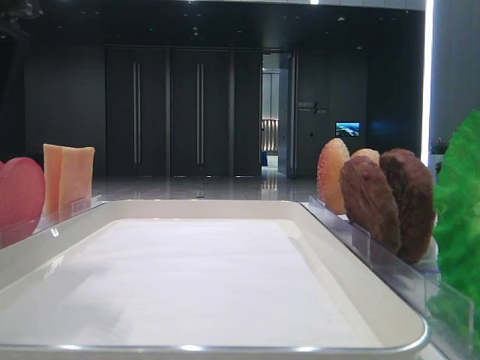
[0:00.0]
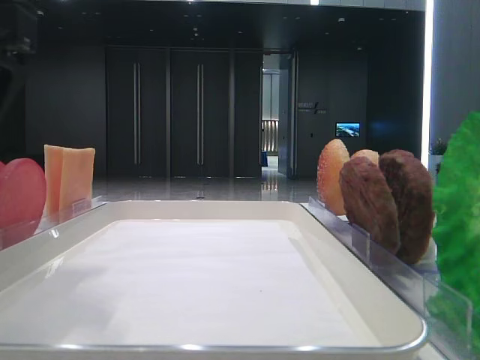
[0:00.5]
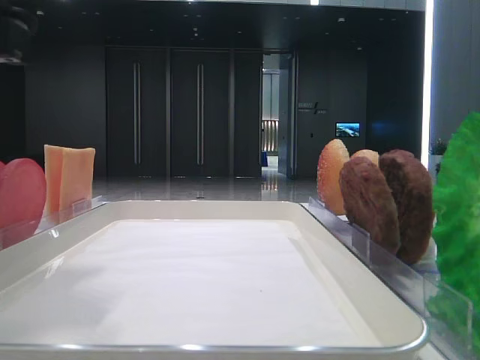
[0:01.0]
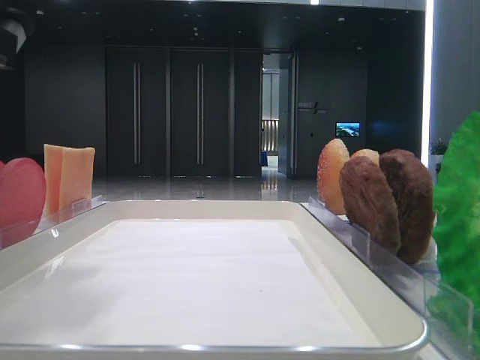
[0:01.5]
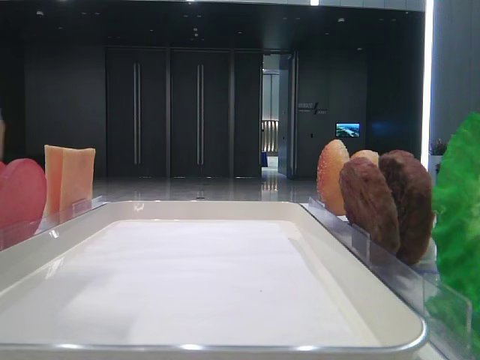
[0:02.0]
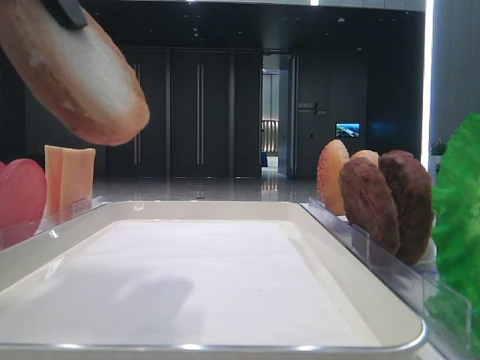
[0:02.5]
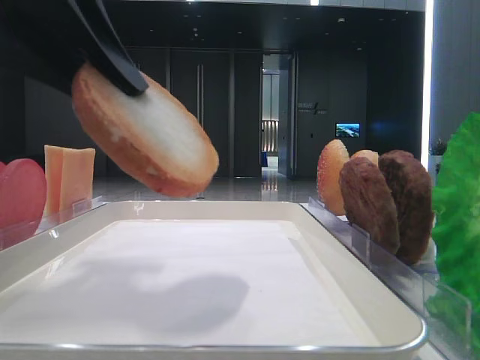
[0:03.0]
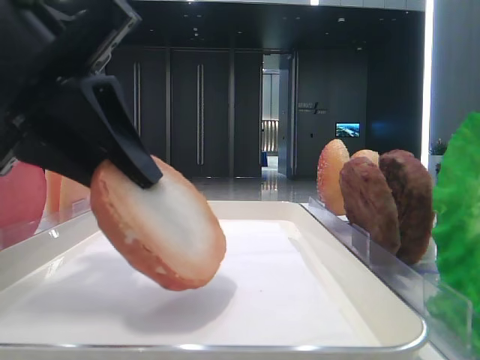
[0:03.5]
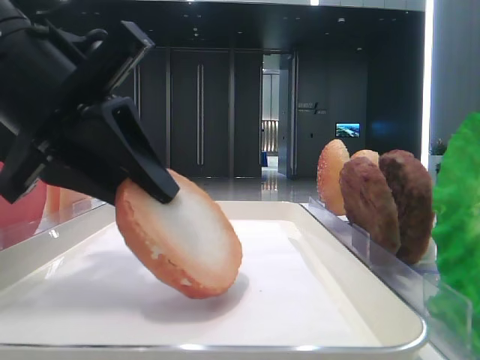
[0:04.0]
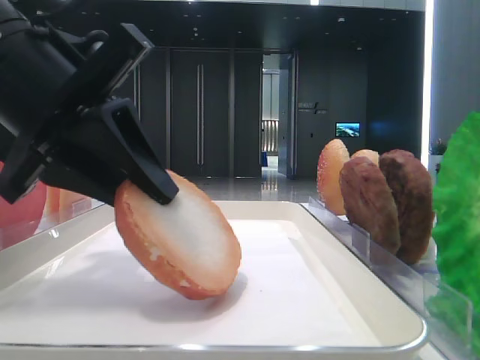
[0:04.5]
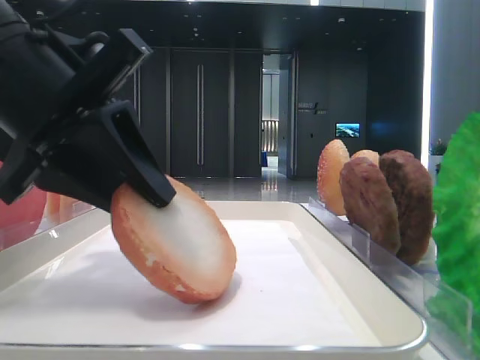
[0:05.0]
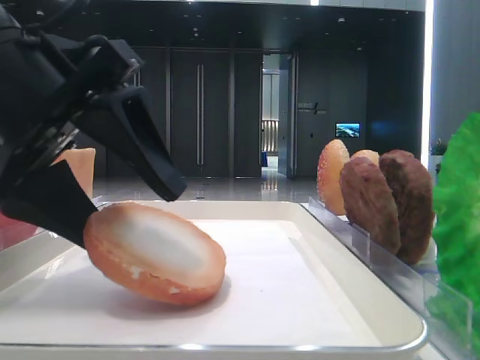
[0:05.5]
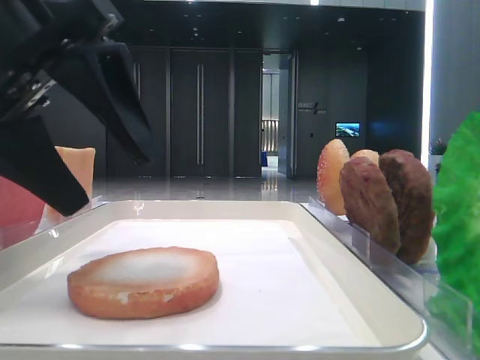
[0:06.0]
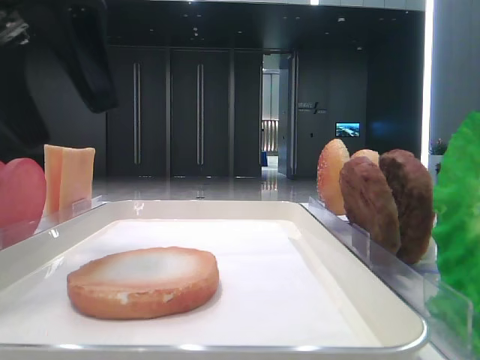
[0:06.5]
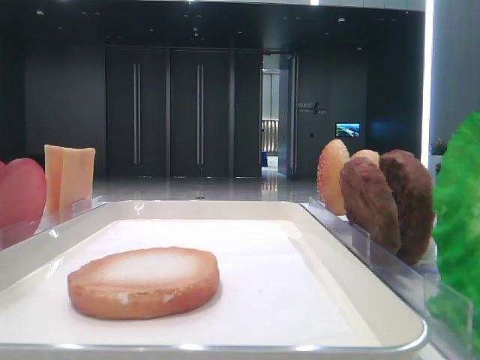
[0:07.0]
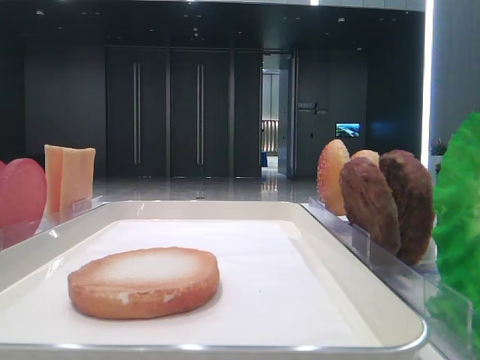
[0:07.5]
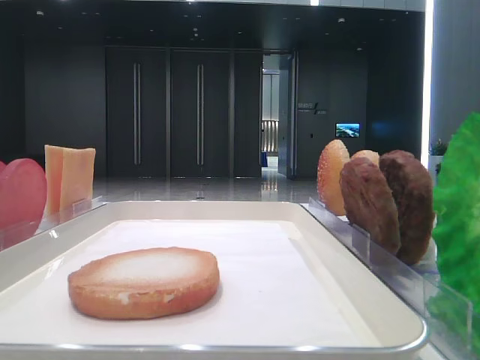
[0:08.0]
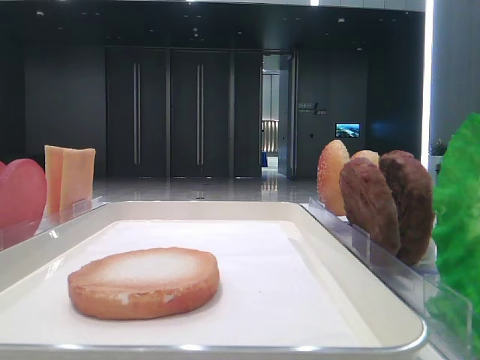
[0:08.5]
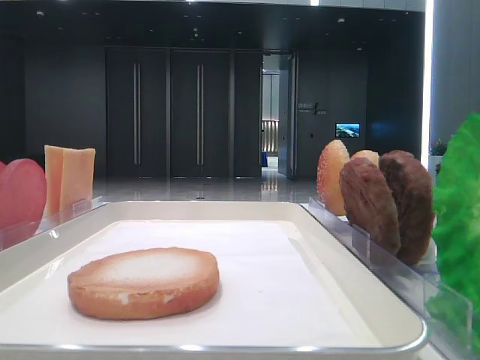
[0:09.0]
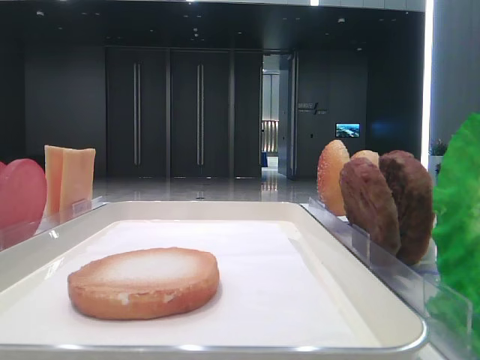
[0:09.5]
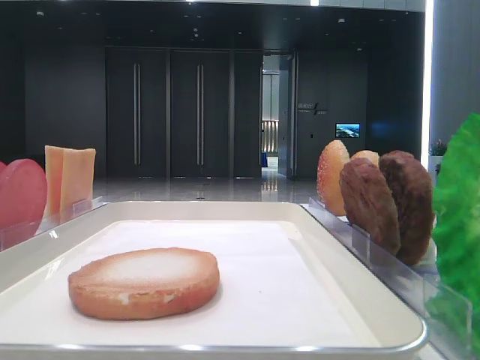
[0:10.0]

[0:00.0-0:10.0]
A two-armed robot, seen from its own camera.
Step, 0:01.5 to 0:05.5: Place the bread on the tray with the left hand.
0:00.0 to 0:02.0: The left gripper heads upward, covering some 5 cm, and closes up.
0:02.0 to 0:04.0: The left gripper travels downward by some 15 cm.
0:04.0 to 0:06.0: The left gripper moves upward, about 5 cm, and opens its fingers.
0:06.0 to 0:08.0: The left gripper travels backward and to the left by about 25 cm.

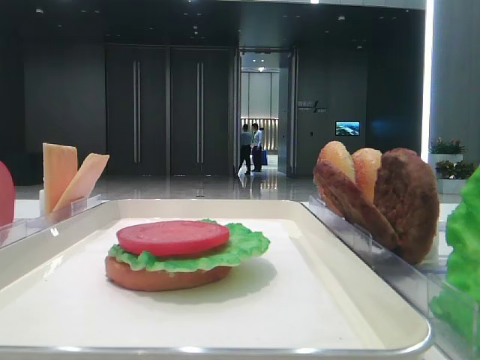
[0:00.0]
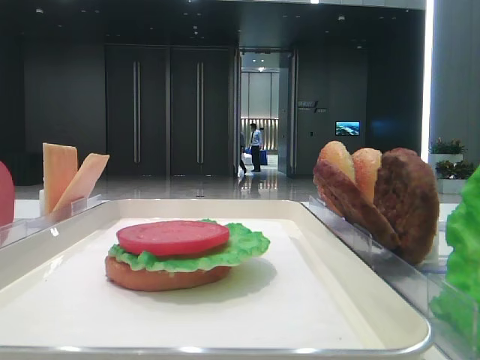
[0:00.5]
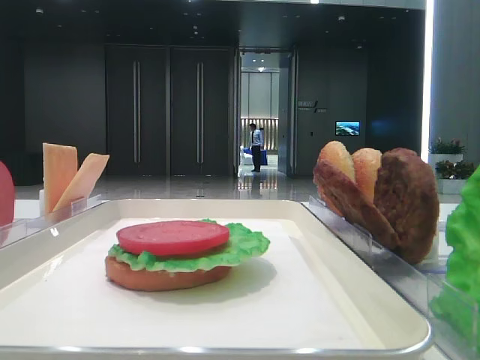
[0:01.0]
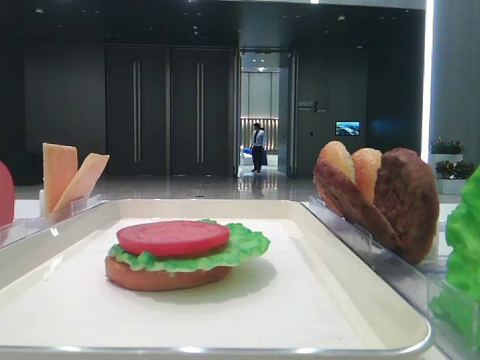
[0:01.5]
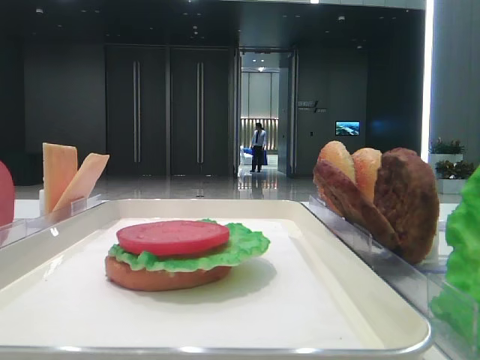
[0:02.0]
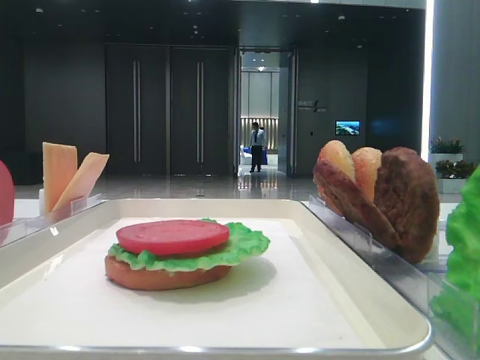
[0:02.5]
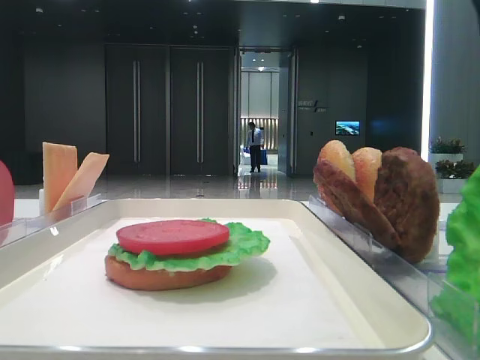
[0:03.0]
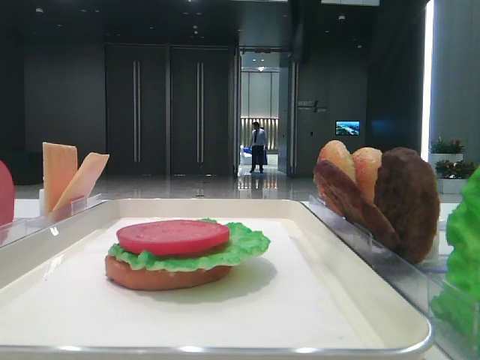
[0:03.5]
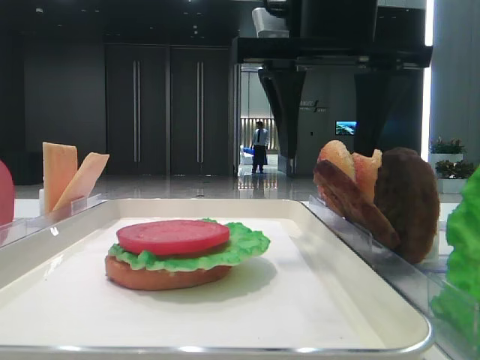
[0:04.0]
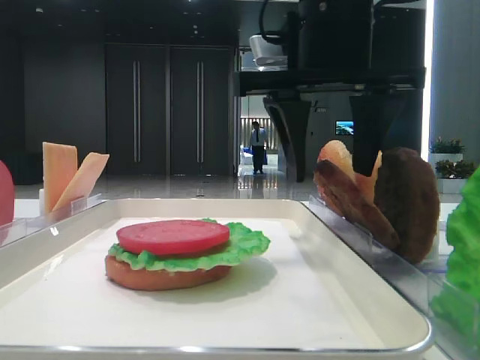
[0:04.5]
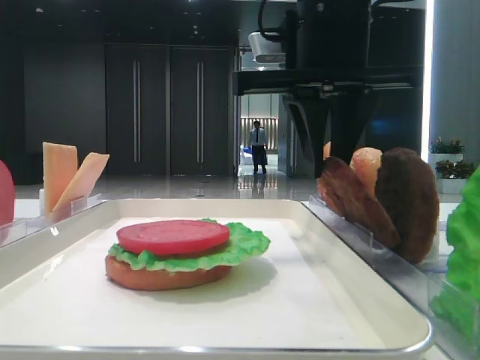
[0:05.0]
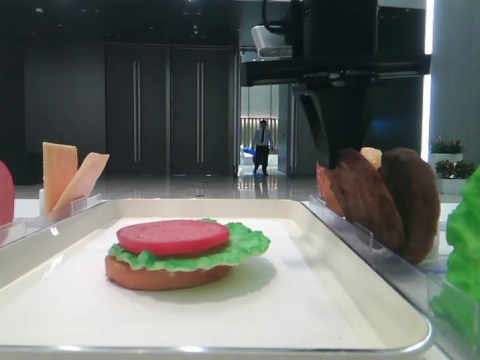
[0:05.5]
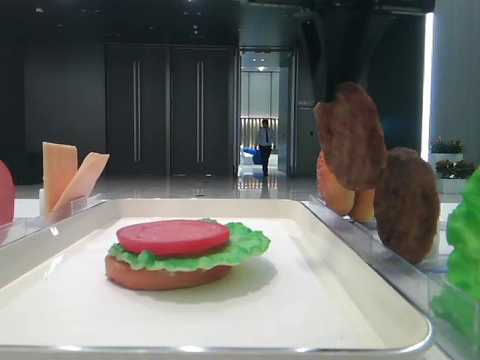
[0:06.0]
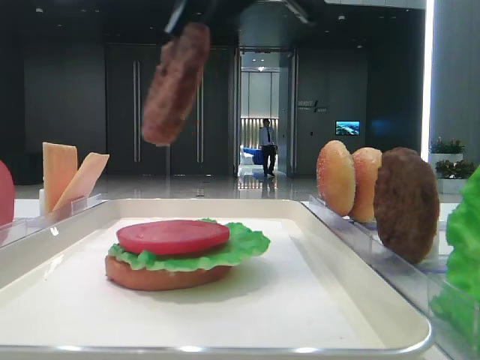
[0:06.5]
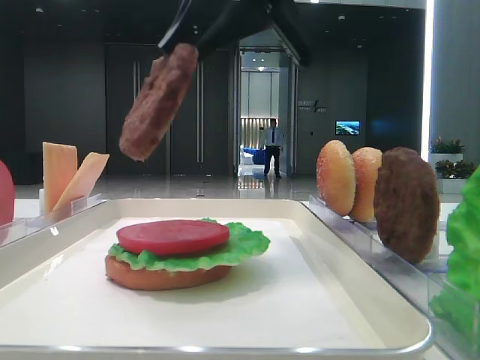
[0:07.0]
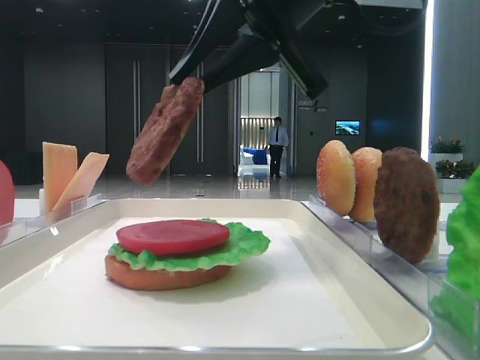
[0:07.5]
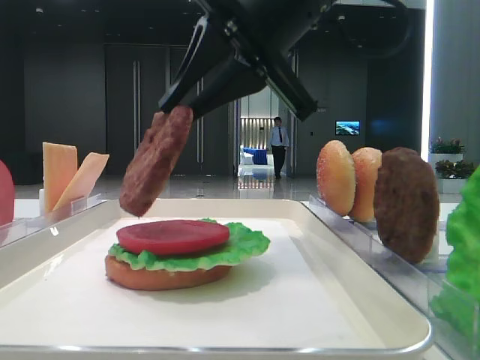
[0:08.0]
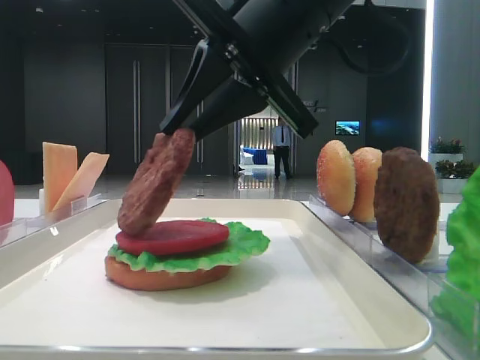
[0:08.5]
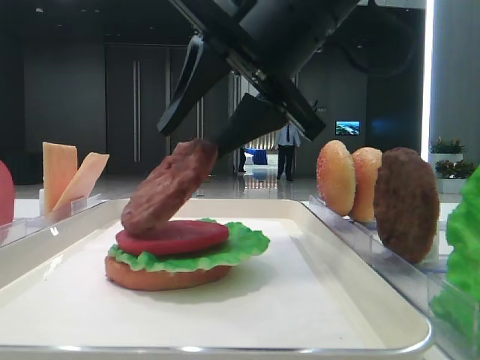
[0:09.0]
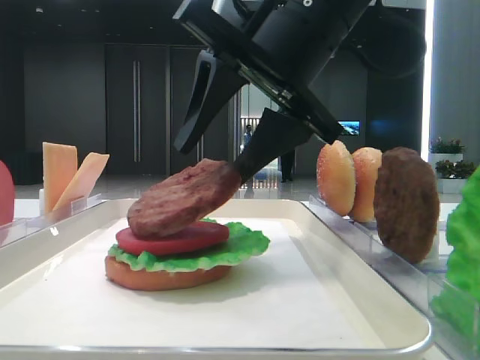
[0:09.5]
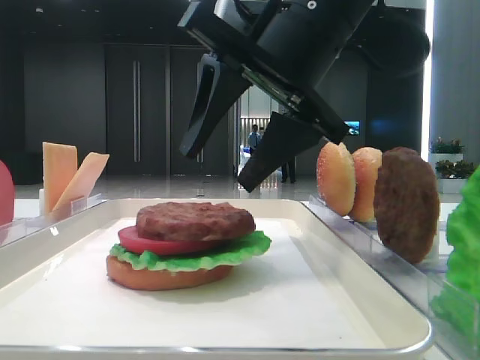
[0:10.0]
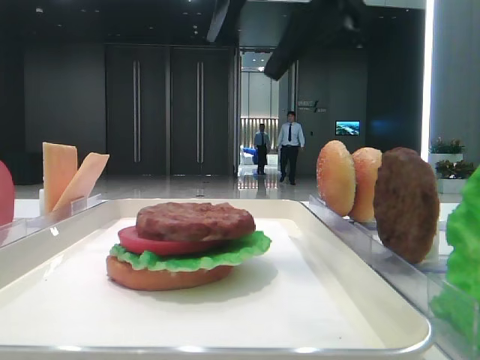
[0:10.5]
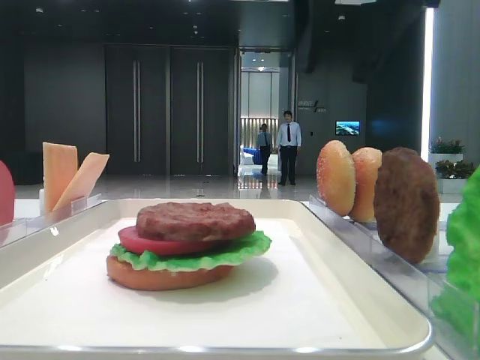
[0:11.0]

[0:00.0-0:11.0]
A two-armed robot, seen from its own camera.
Step, 0:00.0 to 0:05.5: Grab the patty with the right hand.
Step, 0:06.0 to 0:09.5: Place the patty on the tomato slice with the right hand.
0:02.0 to 0:03.5: The right gripper shifts about 30 cm forward and to the left.
0:03.5 to 0:05.5: The right gripper shifts roughly 10 cm downward, and closes.
0:05.5 to 0:07.5: The right gripper moves some 10 cm upward and comes back.
0:07.5 to 0:09.0: The right gripper opens its fingers.
0:09.0 to 0:11.0: The right gripper heads upward and to the right, covering some 10 cm.

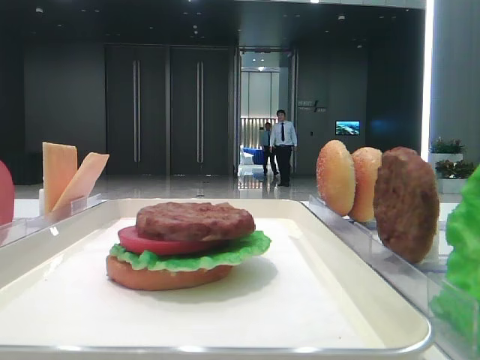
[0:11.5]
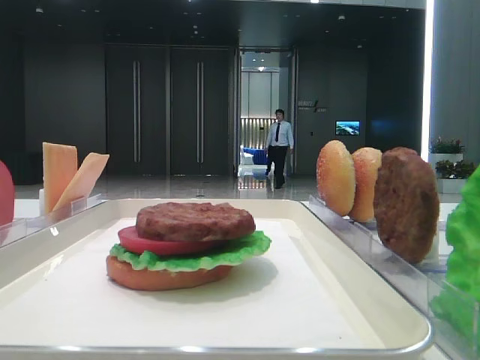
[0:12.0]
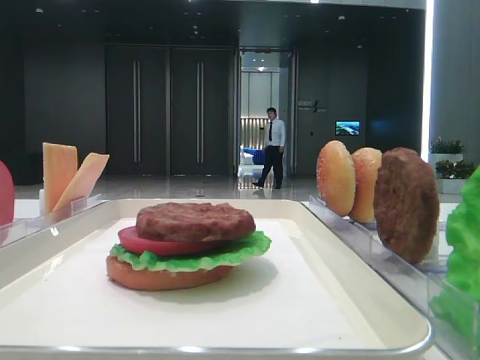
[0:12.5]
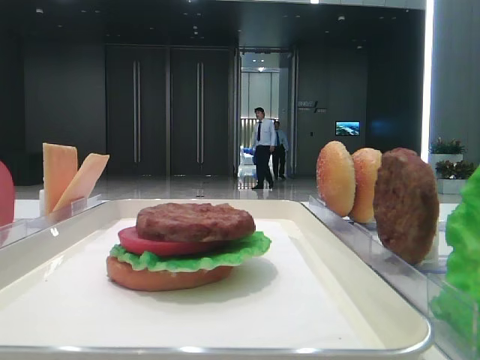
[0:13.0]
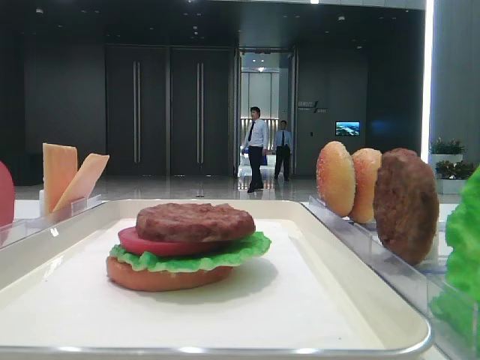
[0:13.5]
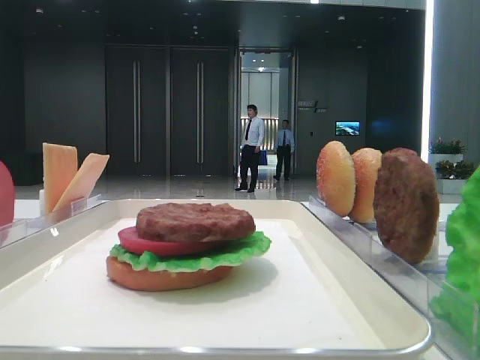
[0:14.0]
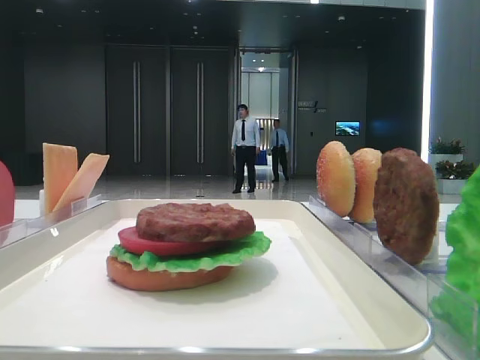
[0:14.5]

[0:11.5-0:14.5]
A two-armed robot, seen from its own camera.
0:11.5 to 0:13.0: The right gripper shifts some 30 cm backward.
0:13.0 to 0:14.5: The right gripper shifts roughly 5 cm backward.

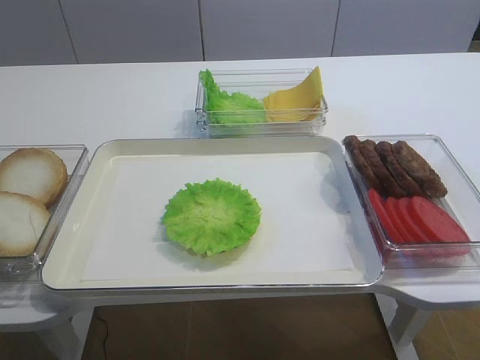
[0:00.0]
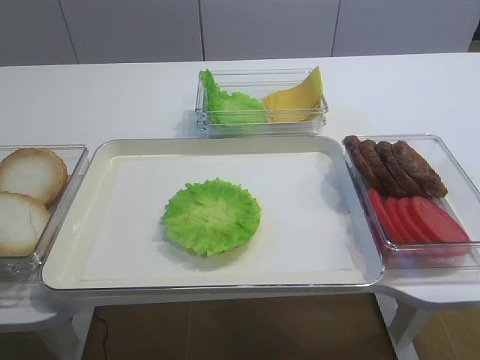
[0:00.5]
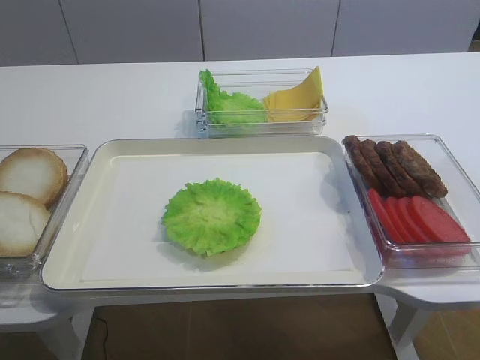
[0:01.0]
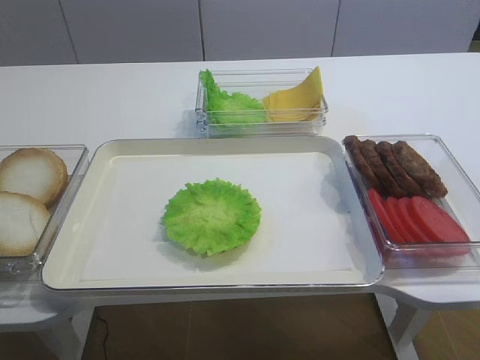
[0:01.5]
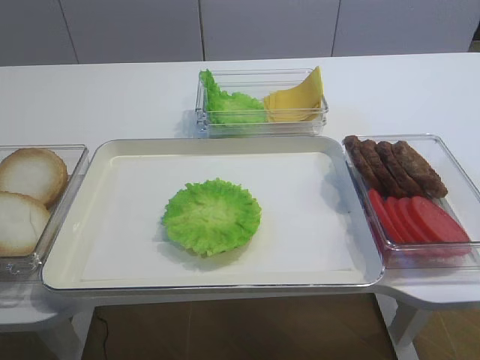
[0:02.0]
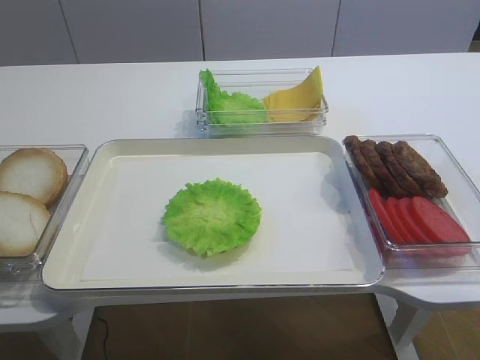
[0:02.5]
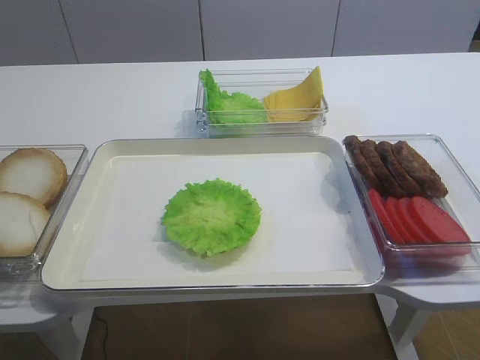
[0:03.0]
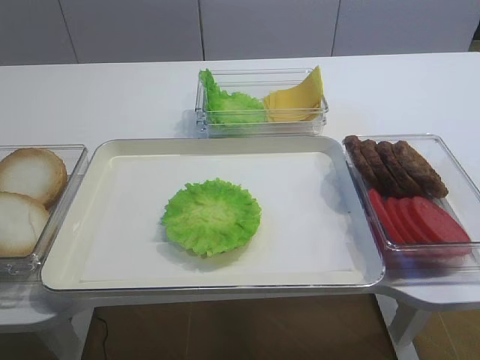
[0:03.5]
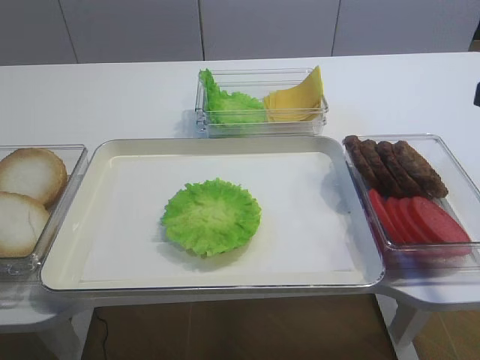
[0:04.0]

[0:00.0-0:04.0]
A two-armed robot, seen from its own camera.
0:02.0 to 0:04.0: The right gripper is displaced forward by some 20 cm.
